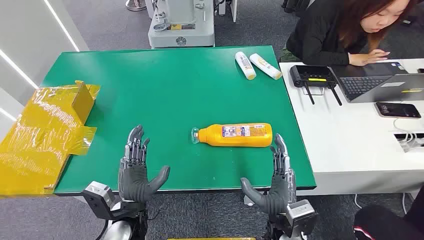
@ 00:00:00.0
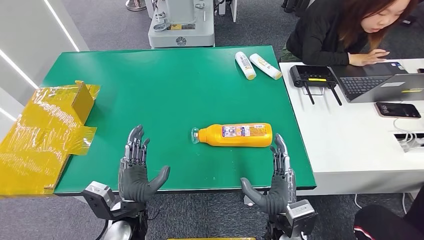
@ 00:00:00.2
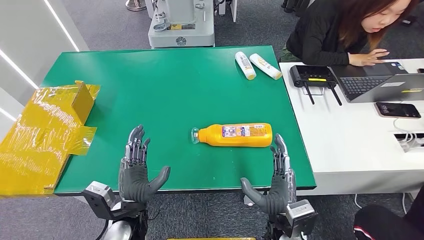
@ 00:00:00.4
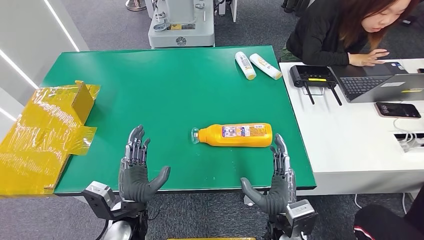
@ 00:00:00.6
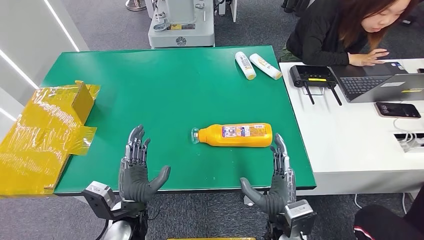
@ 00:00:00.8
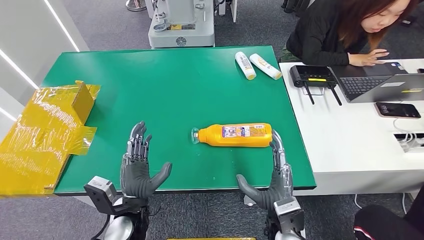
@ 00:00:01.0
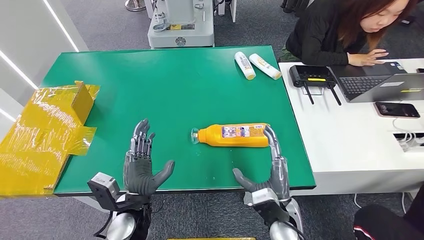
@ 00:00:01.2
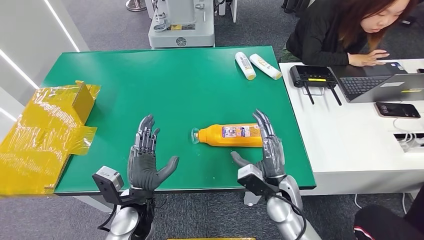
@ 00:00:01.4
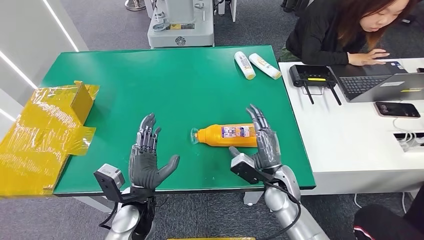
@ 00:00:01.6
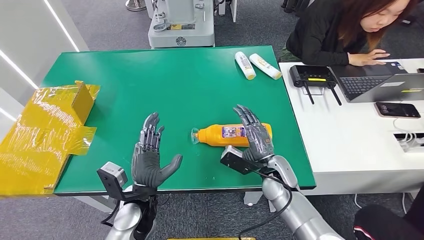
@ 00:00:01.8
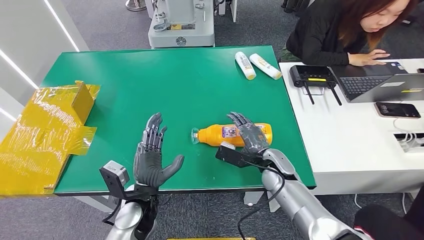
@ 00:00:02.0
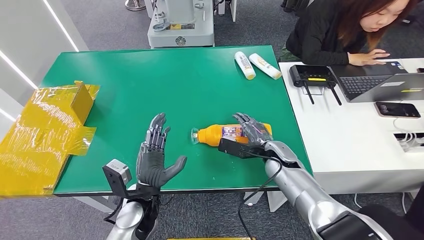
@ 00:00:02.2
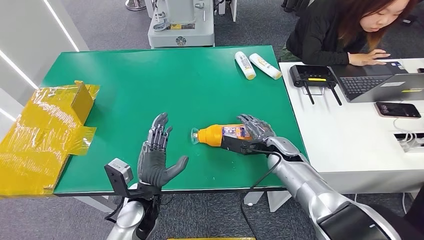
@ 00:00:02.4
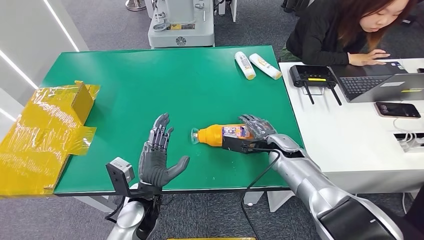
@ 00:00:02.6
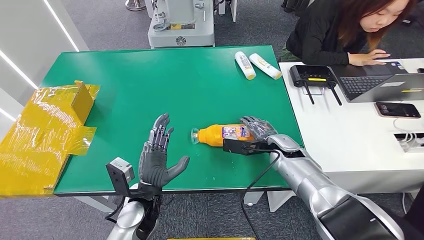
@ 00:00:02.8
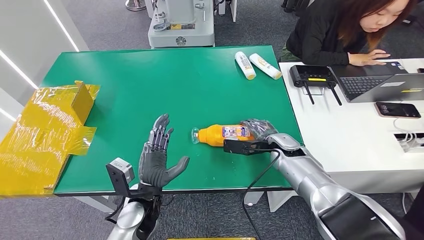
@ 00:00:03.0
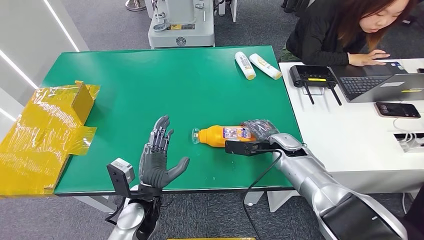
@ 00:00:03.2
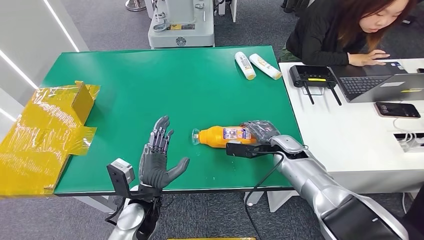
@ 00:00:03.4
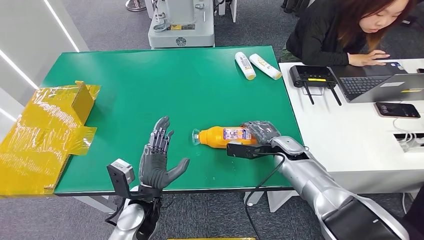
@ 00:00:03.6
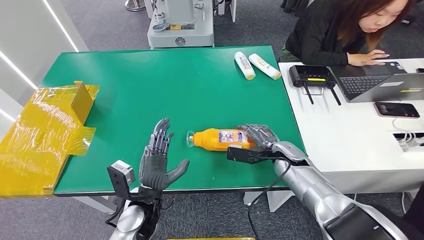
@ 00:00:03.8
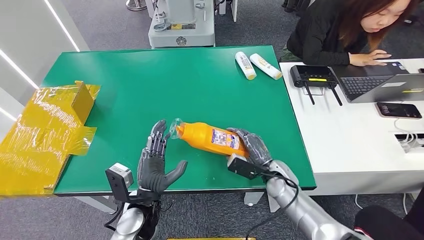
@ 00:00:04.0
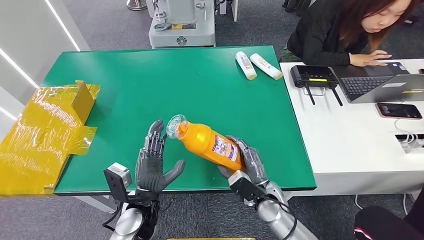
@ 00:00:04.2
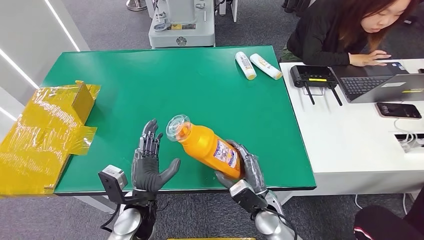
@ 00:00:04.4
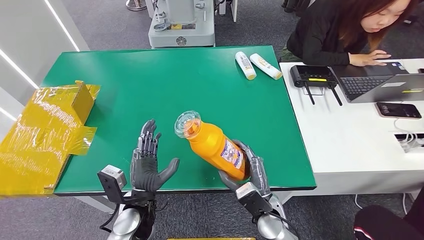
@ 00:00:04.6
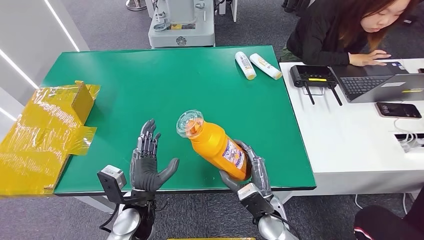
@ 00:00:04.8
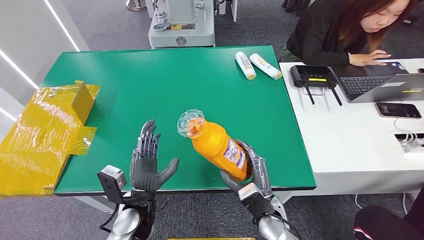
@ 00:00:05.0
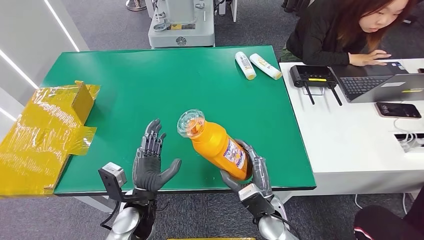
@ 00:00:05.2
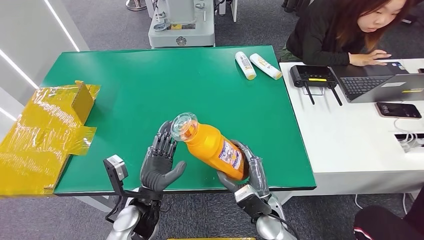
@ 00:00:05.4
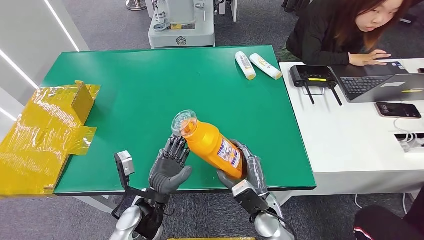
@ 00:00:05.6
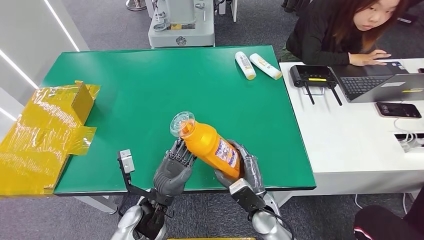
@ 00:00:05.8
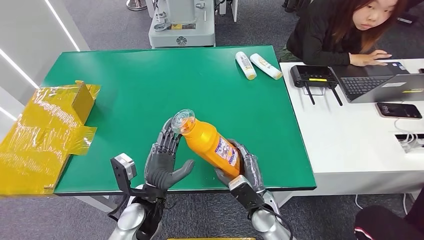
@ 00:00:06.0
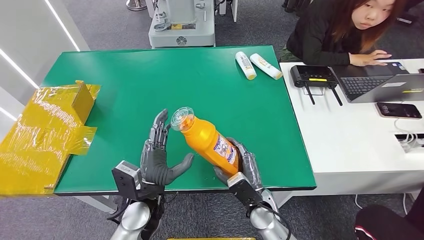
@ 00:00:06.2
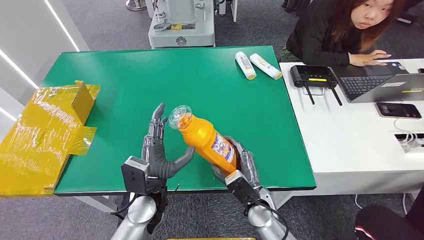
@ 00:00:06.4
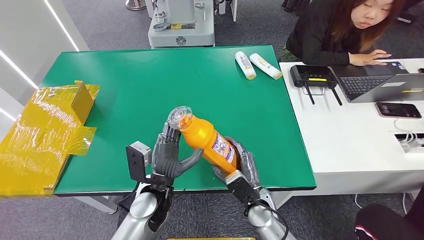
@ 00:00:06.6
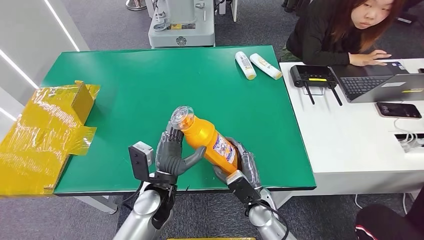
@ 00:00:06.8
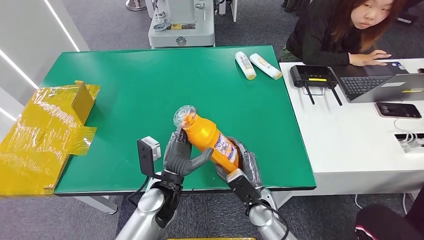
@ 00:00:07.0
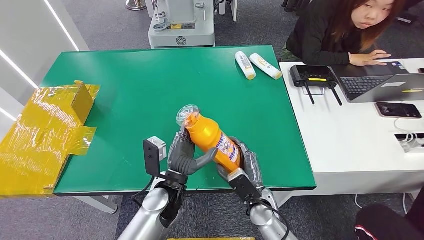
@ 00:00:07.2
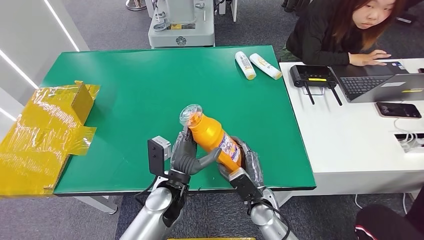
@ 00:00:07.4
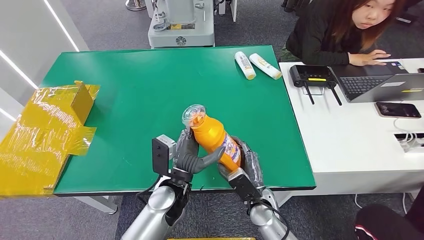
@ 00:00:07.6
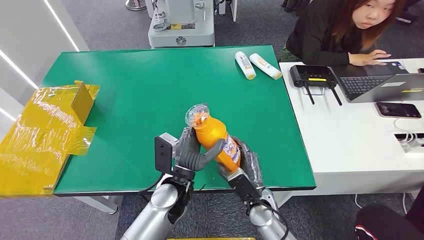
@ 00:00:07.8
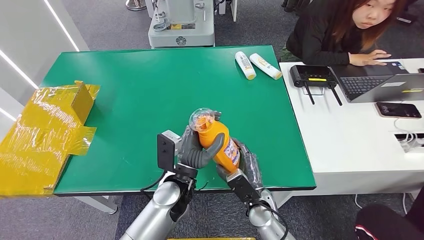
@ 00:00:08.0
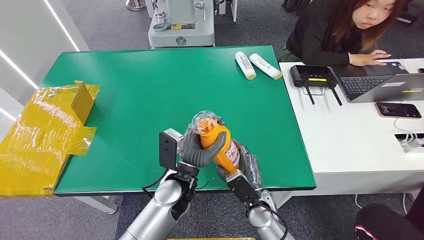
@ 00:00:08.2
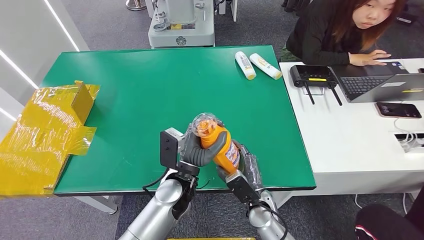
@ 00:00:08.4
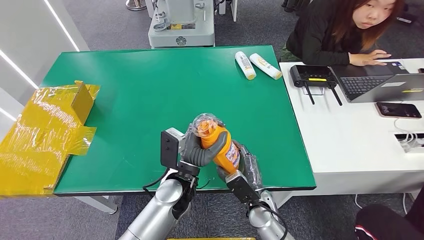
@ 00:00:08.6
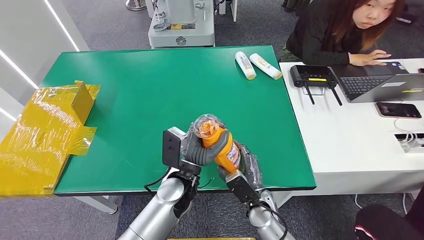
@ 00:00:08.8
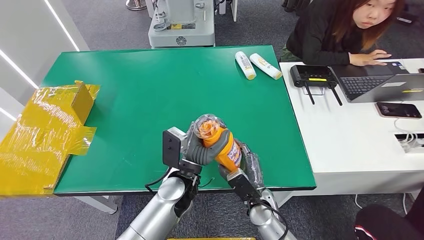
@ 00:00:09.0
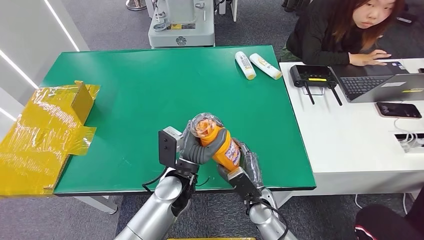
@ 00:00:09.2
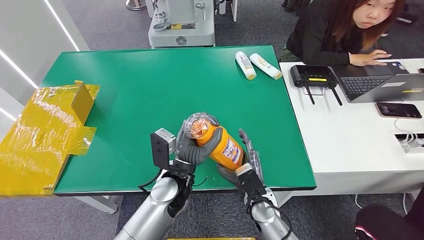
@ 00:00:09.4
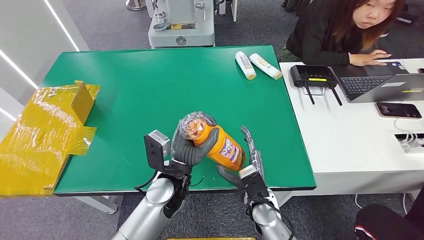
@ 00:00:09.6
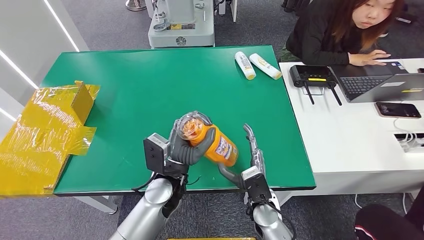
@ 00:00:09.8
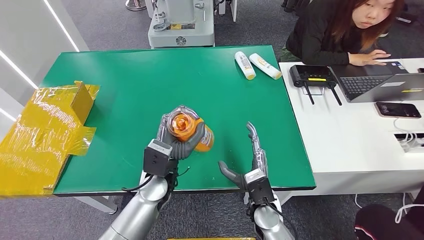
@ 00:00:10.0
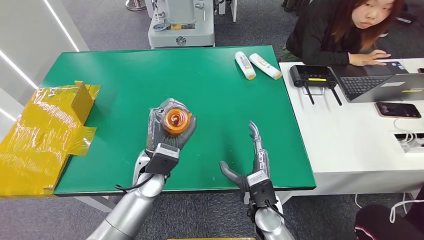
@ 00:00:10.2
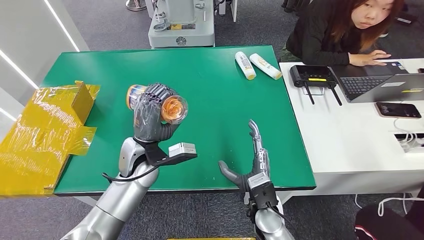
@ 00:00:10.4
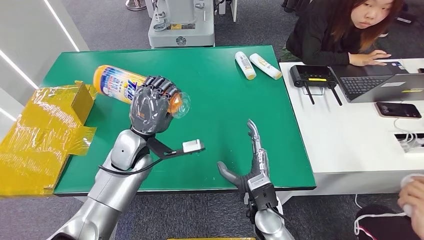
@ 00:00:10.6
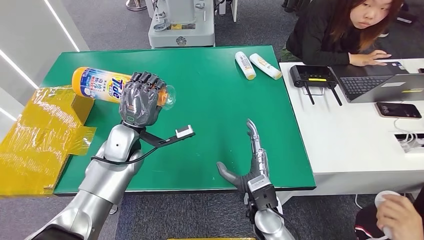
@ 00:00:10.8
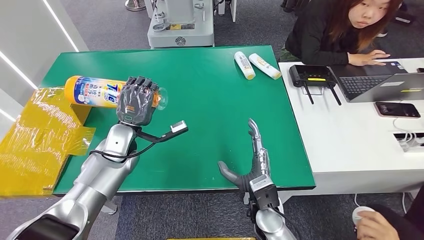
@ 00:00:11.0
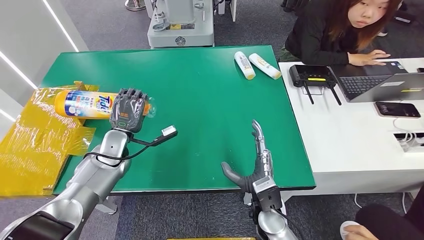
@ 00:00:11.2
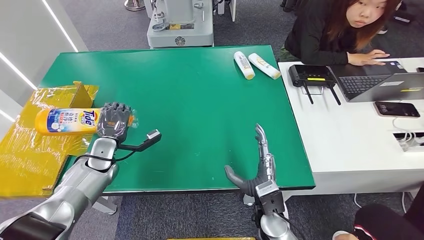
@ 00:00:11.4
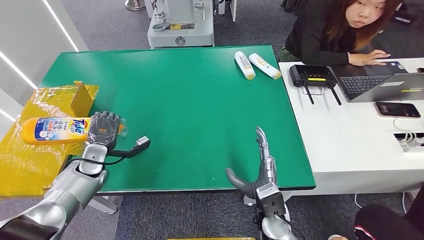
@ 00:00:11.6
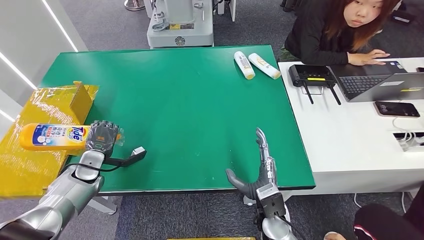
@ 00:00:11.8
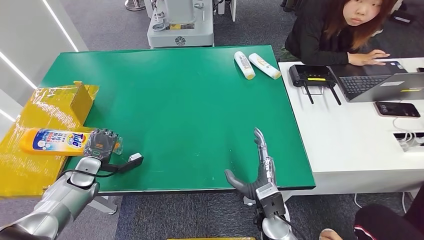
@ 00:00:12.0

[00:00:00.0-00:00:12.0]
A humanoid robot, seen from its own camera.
Step, 00:00:00.0 to 00:00:04.2: Pick up the bottle from the table.
00:00:01.6 to 00:00:03.0: The right hand moves forward, roughly 10 cm.
00:00:03.0 to 00:00:04.4: The right hand travels backward and downward by approximately 15 cm.
00:00:06.0 to 00:00:07.6: The left hand heads to the right, covering about 5 cm.
00:00:07.6 to 00:00:09.0: The hands make only small movements.
00:00:09.0 to 00:00:10.4: The left hand shifts about 10 cm to the left and forward. Meanwhile the right hand moves upward, approximately 5 cm.
00:00:10.4 to 00:00:12.0: The left hand moves to the left and downward, roughly 25 cm.

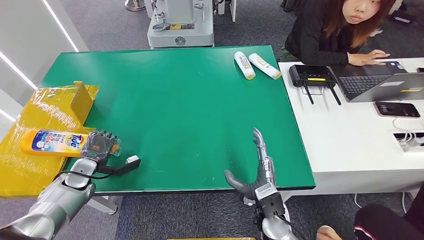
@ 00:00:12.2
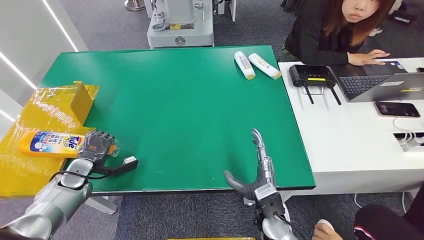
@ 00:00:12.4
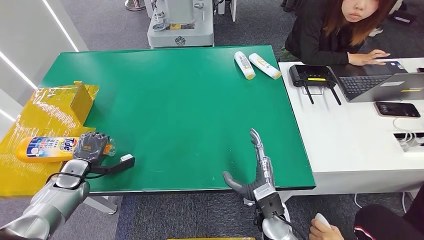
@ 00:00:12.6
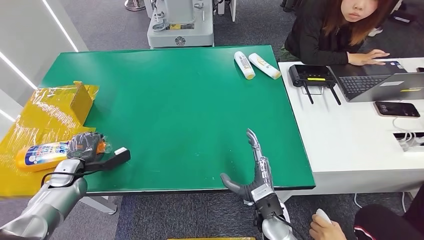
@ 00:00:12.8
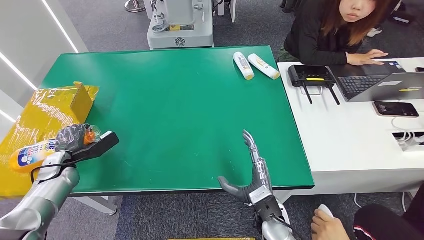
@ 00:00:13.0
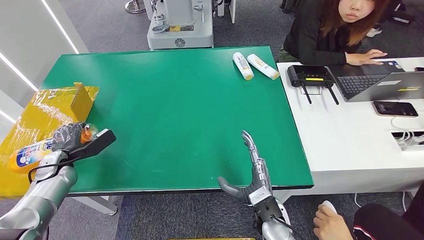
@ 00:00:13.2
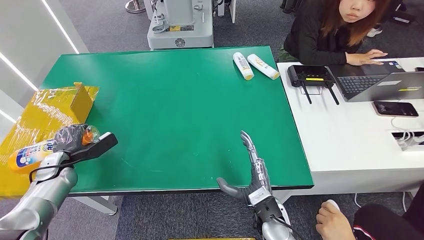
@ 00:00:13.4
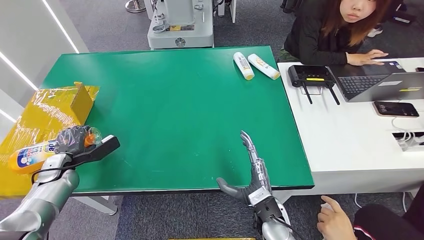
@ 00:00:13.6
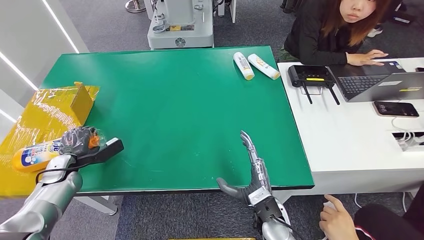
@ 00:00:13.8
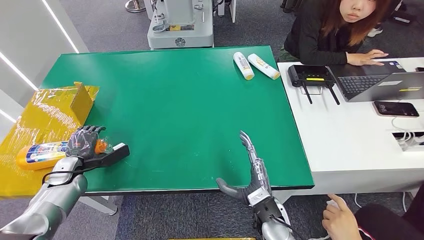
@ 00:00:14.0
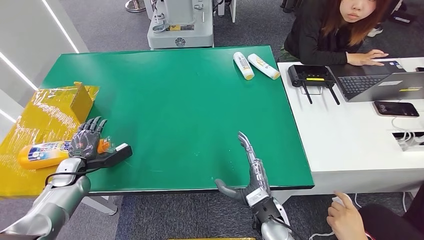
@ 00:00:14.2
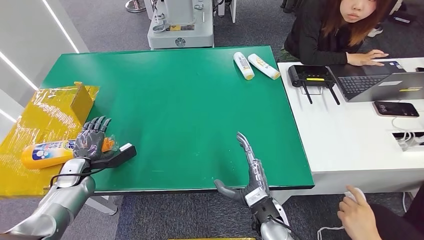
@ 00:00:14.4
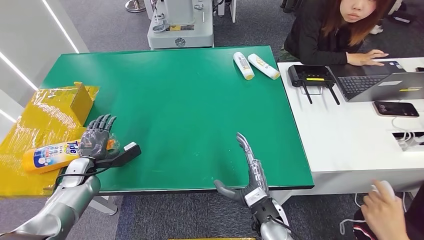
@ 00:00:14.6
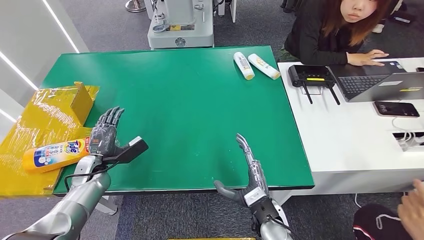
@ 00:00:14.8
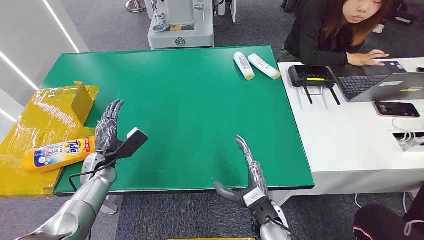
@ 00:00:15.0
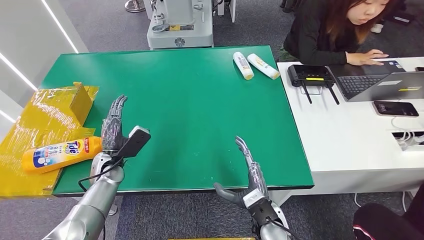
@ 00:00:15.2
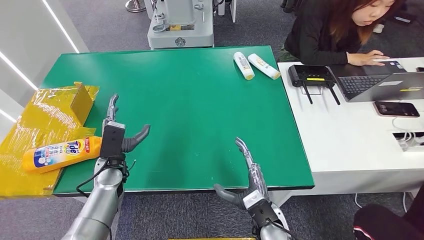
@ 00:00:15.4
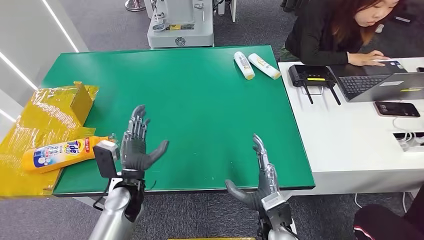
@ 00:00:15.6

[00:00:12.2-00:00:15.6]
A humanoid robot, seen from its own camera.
Step, 00:00:12.2 to 00:00:15.4: Turn the bottle to the front side.
00:00:13.8 to 00:00:15.6: The left hand goes roughly 25 cm to the right.
